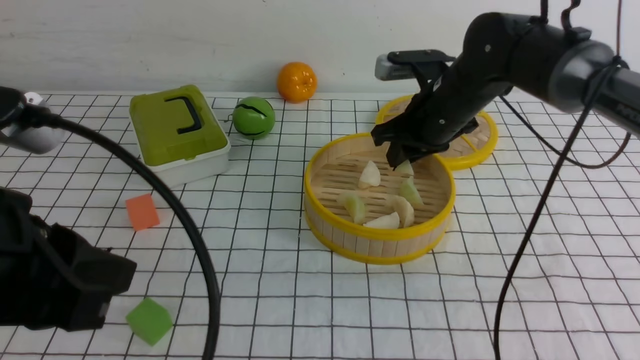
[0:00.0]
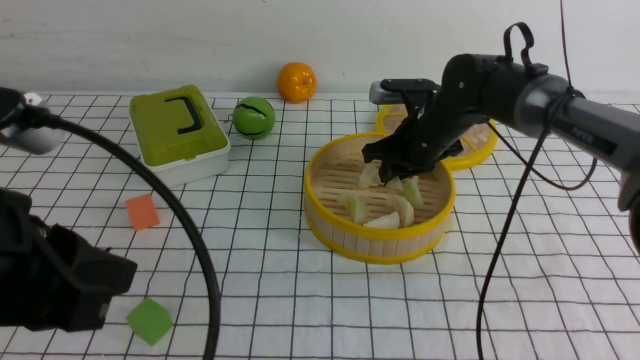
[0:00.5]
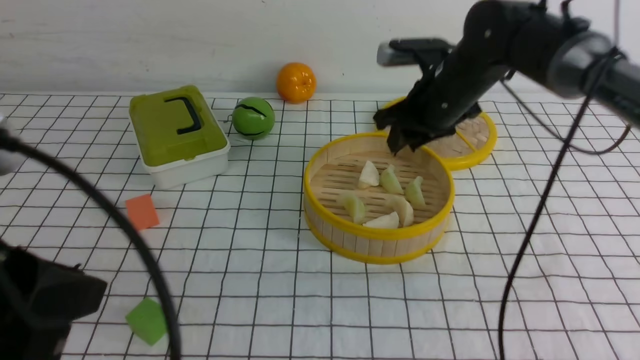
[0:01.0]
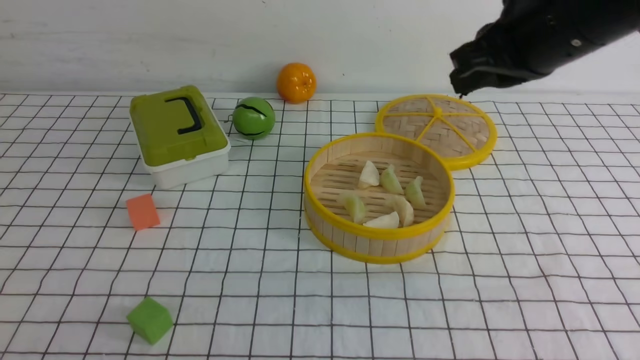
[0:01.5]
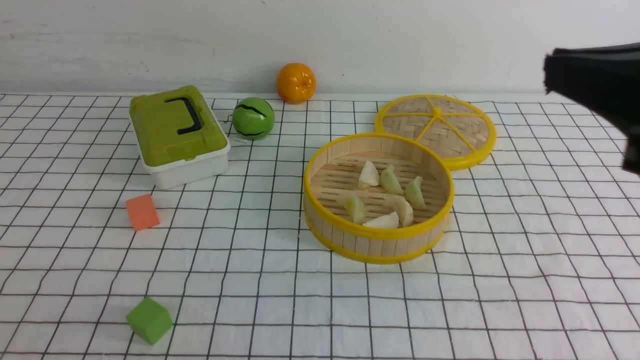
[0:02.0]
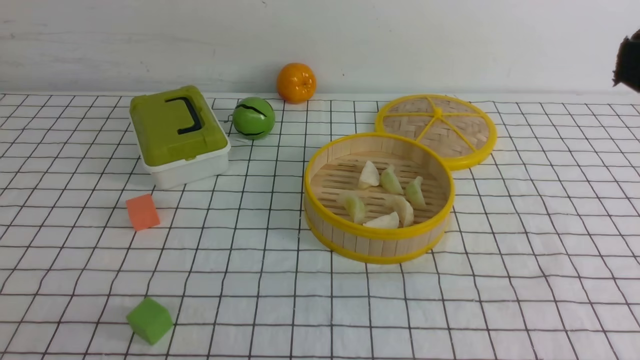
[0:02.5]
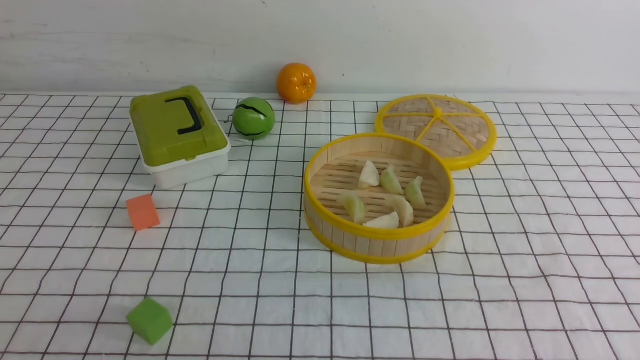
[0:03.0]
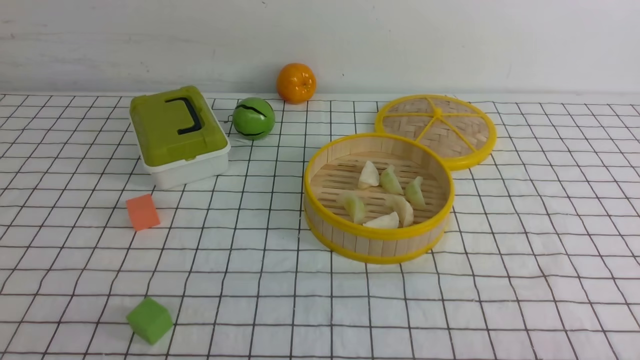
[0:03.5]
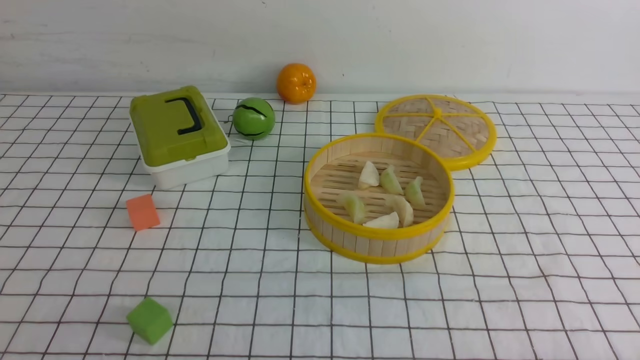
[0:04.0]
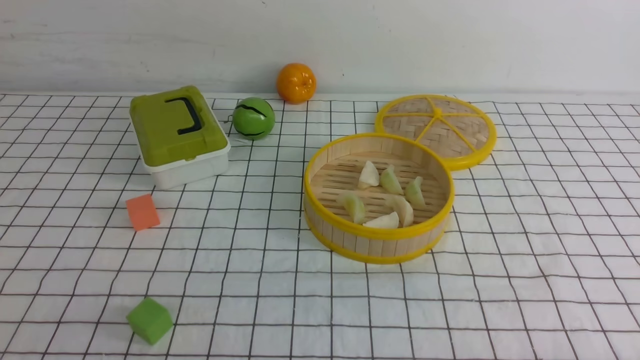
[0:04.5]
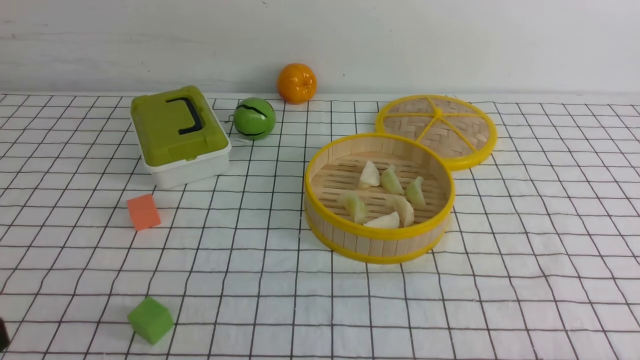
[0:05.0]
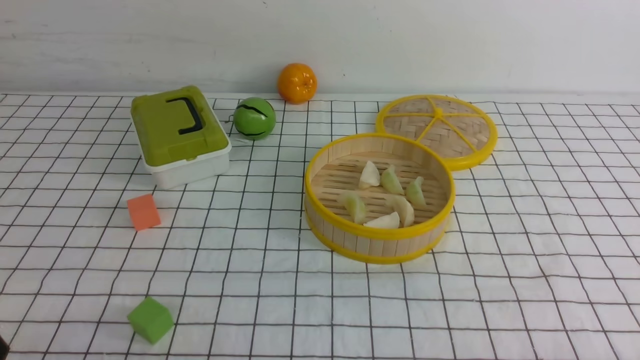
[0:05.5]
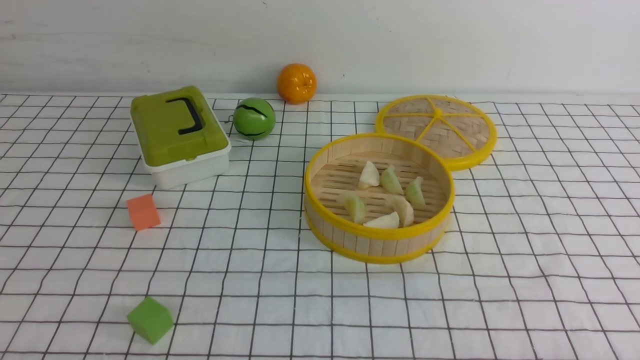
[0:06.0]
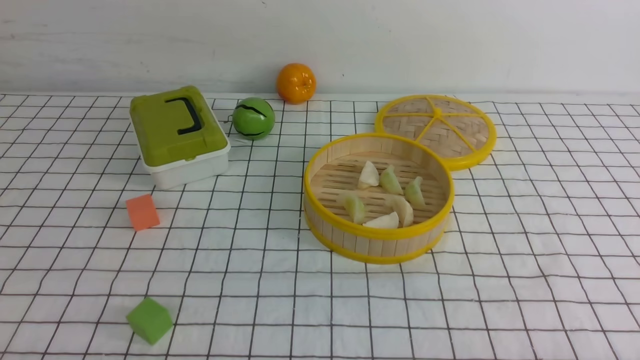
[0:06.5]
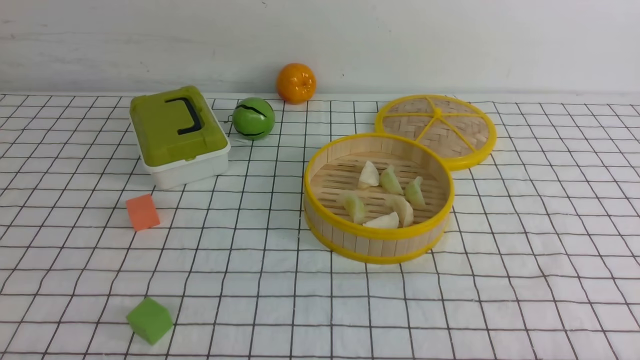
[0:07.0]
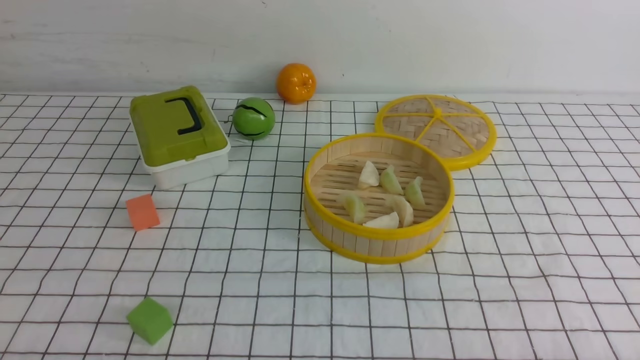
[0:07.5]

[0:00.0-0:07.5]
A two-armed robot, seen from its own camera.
Task of the whole recording: put the dumplings into the steamer on the table with the white tablecloth.
Step, 0:00.0 to 0:01.0: use the right arm to put the dumpling into the steamer.
0:00.0 to 0:02.0: The right gripper heads backward and upward, covering roughly 35 cm, and closes up. Meanwhile the left gripper goes about 15 cm backward, to the left and downward.
0:02.0 to 0:04.0: The right gripper goes about 25 cm downward and backward.
